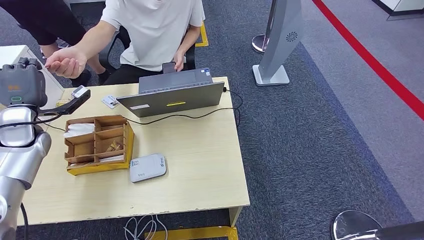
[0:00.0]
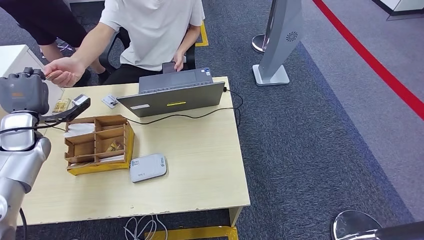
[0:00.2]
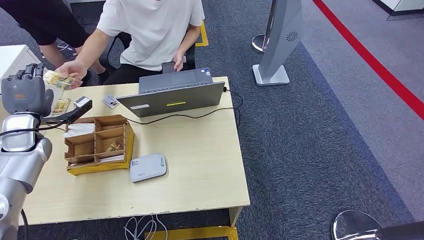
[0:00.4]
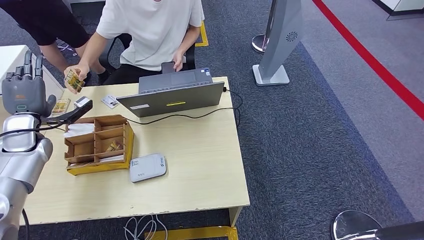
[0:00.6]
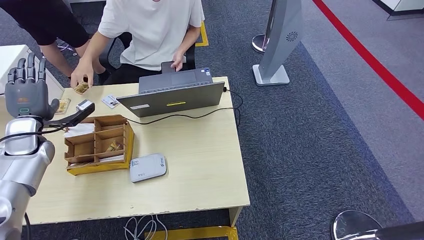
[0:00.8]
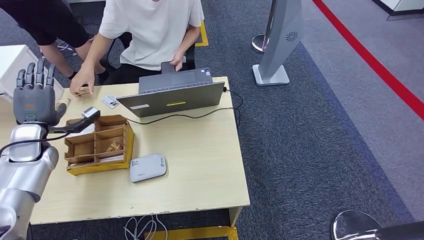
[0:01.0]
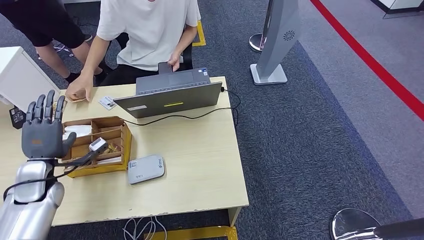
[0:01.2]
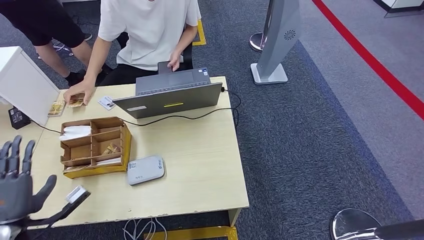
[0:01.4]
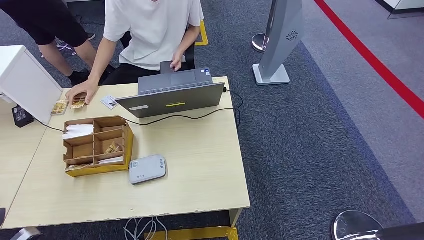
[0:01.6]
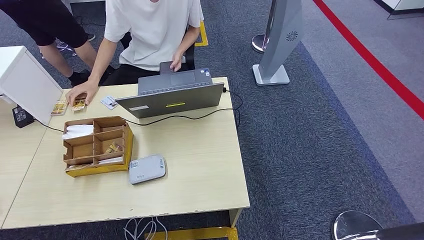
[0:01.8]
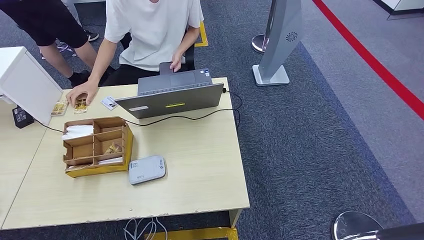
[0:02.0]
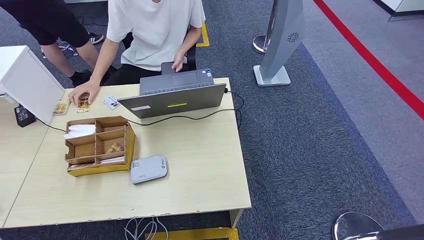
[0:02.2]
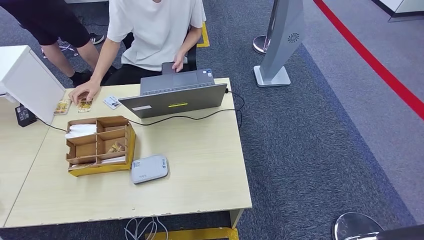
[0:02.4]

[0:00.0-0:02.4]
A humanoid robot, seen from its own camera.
Step, 0:00.0 to 0:02.4: Hand the room key to the person.
